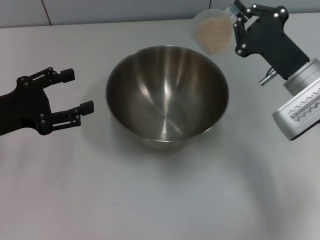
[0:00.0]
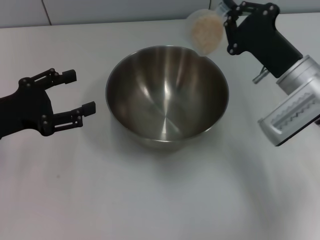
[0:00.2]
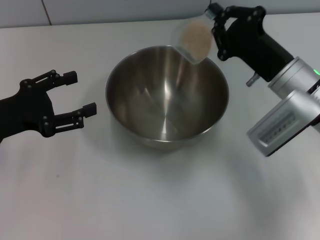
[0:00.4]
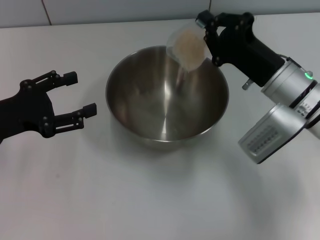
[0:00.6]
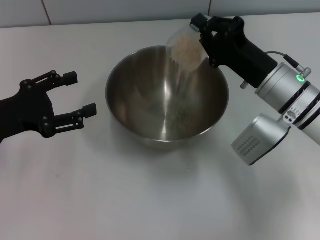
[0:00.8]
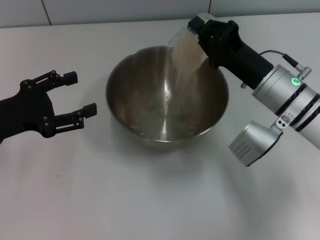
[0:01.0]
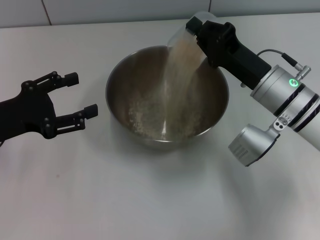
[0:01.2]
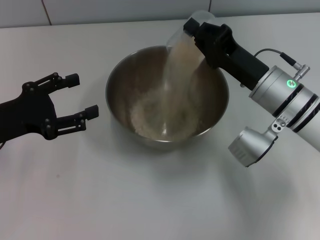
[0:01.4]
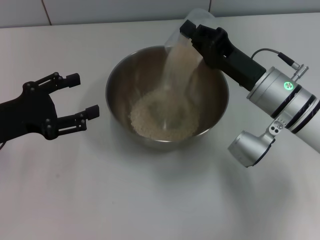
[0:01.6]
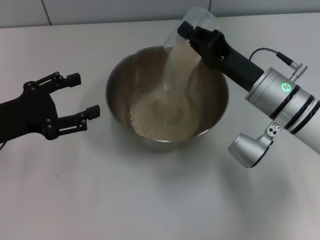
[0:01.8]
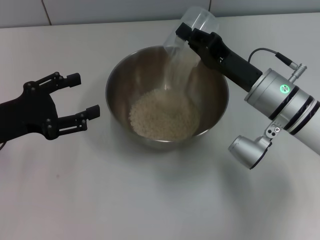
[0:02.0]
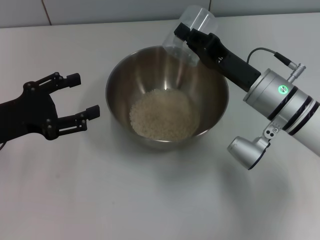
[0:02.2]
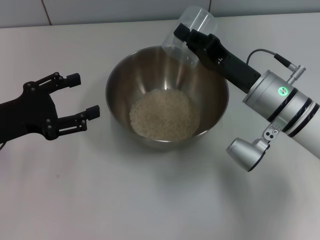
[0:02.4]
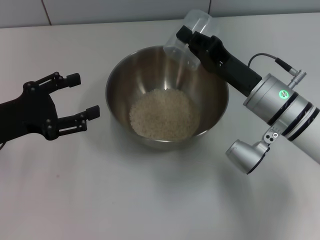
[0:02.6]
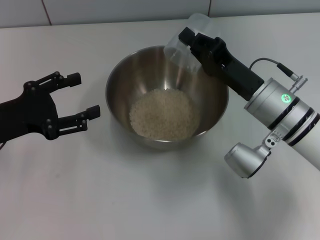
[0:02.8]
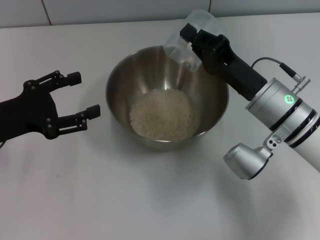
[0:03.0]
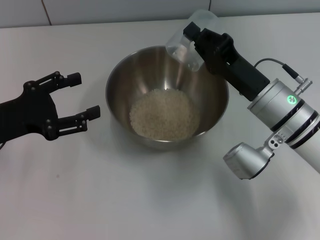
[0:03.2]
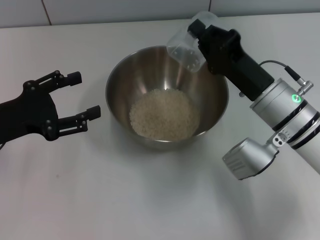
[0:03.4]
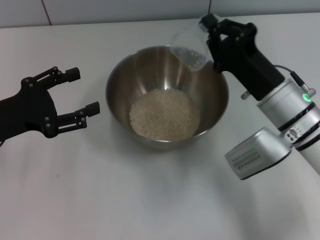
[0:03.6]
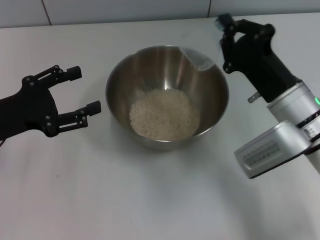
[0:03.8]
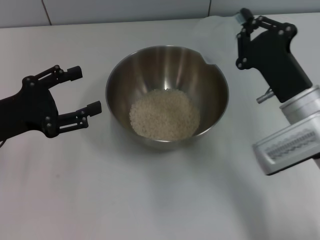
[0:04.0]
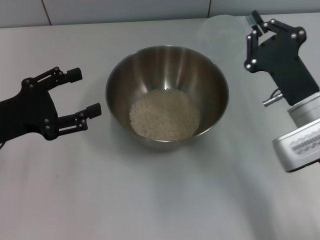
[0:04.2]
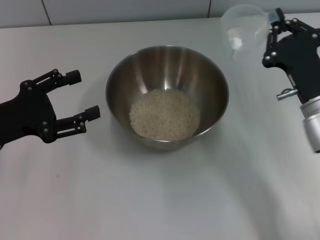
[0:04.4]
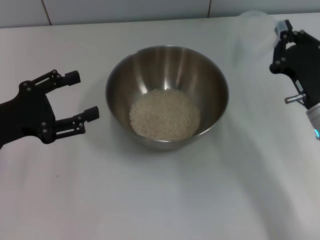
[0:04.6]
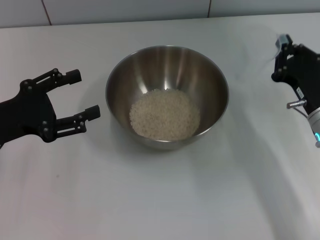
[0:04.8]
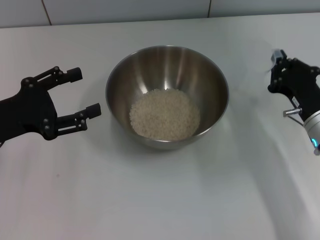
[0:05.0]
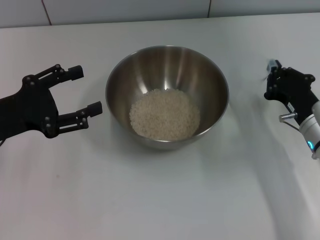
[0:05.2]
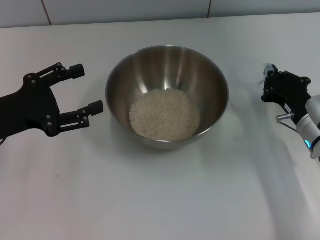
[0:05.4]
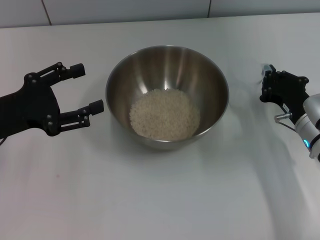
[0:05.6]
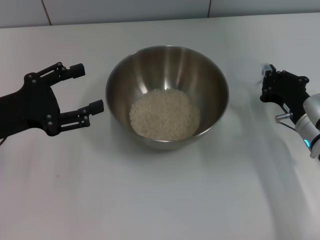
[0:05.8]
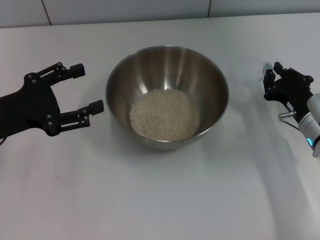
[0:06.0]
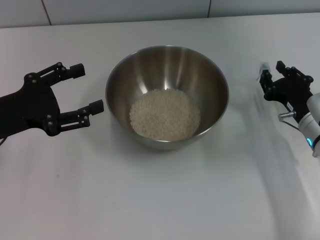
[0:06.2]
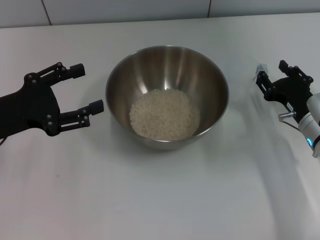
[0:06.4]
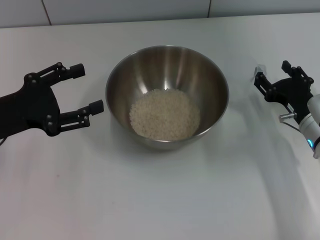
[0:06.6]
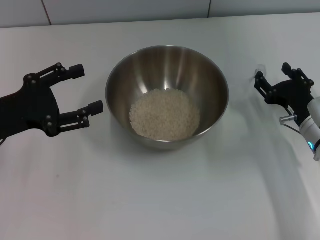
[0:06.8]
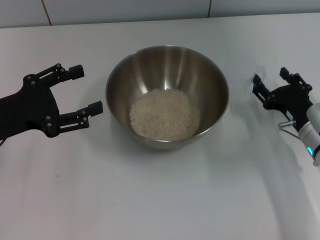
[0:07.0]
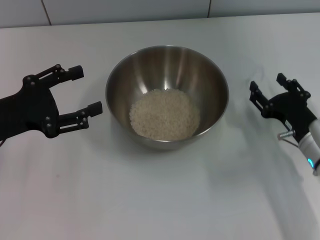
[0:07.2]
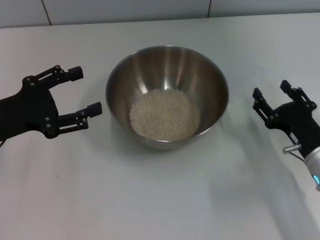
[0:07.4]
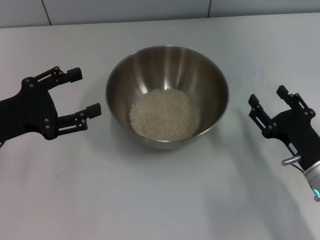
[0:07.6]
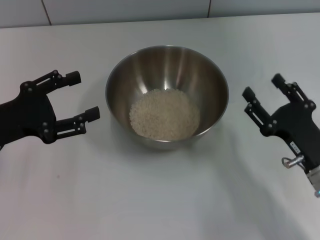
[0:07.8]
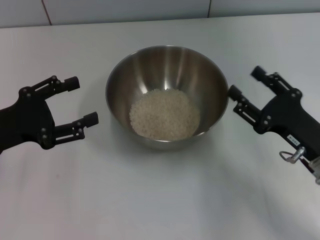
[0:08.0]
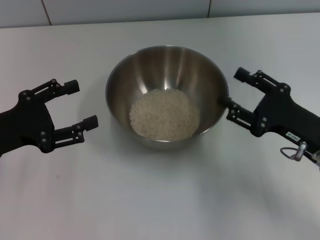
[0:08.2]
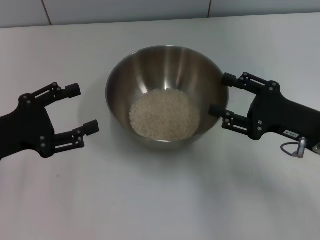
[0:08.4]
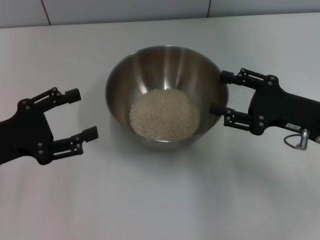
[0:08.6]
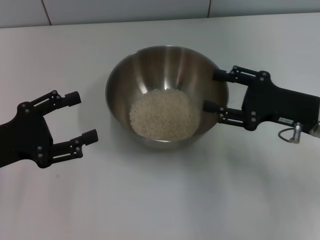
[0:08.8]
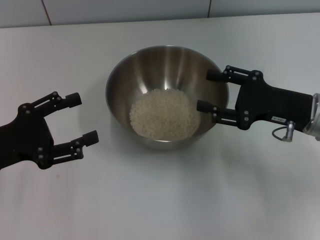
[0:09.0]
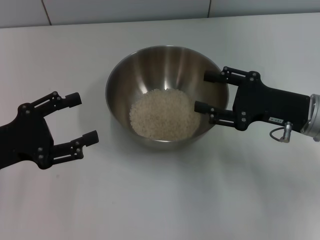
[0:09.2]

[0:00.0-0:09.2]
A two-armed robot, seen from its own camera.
Task of the whole recording: Place the bowl in the middle of the table with one hand and pour the rice from the grain cup into it with the other hand.
Step, 0:00.0 to 0:04.6: Pour the rice from the cup into the bowl with the right gripper.
Step, 0:04.8 to 0:07.6: Place the cup on the table with the right gripper.
0:01.6 to 0:03.0: The grippers stay close to where they were, moving slightly.
0:03.0 to 0:04.6: The right gripper is displaced to the right by approximately 5 cm.
0:04.6 to 0:06.2: The right gripper opens.
0:06.2 to 0:07.6: The right gripper goes about 10 cm backward, and opens.
0:07.6 to 0:09.2: The right gripper is displaced forward and upward by about 10 cm.
